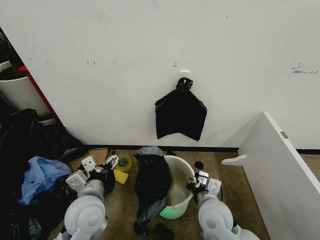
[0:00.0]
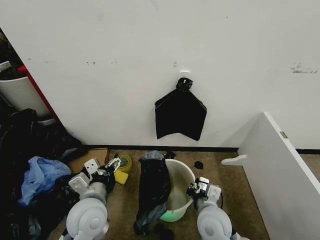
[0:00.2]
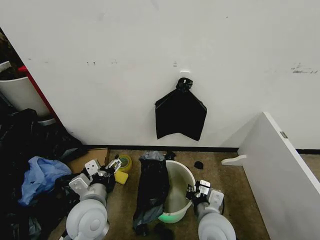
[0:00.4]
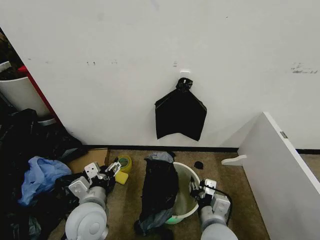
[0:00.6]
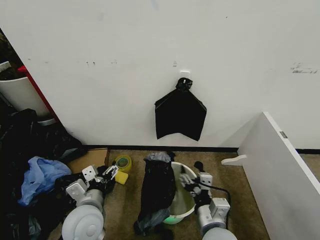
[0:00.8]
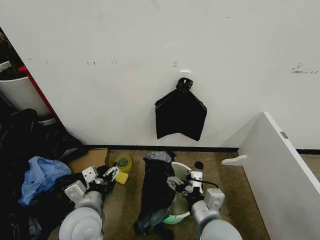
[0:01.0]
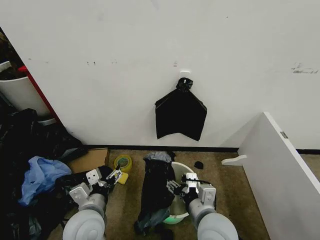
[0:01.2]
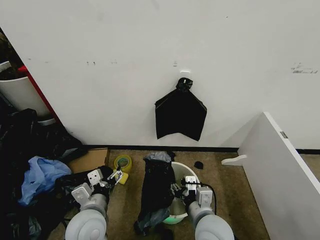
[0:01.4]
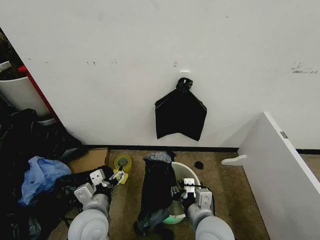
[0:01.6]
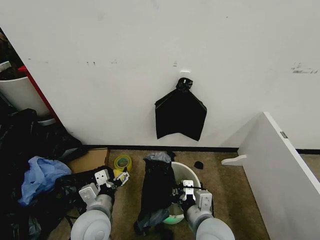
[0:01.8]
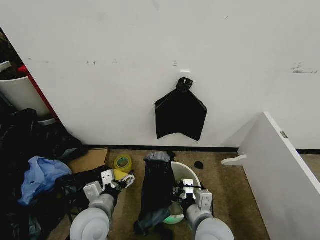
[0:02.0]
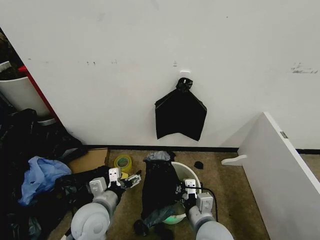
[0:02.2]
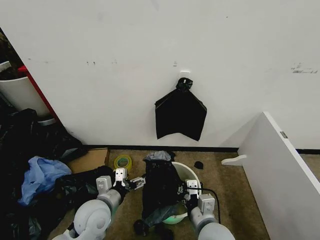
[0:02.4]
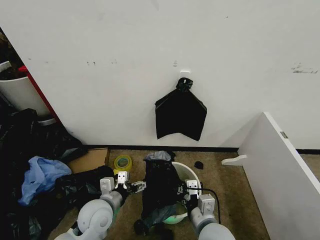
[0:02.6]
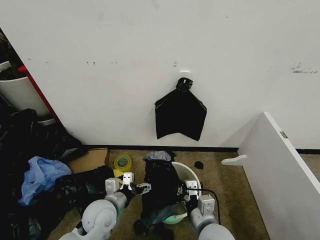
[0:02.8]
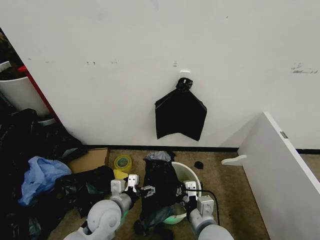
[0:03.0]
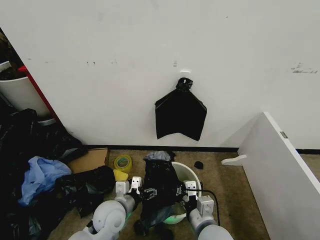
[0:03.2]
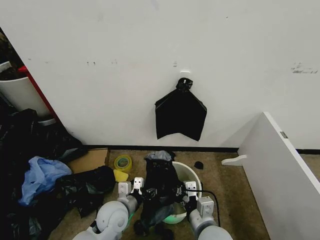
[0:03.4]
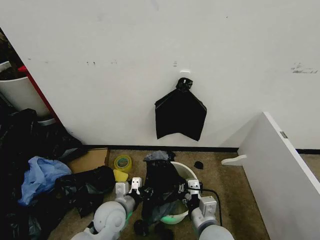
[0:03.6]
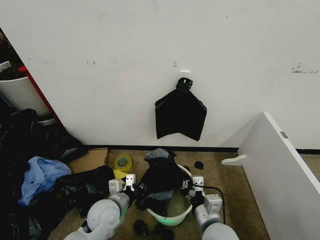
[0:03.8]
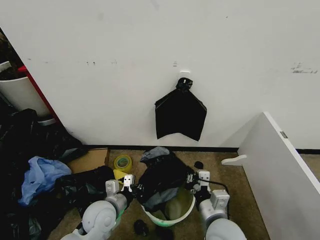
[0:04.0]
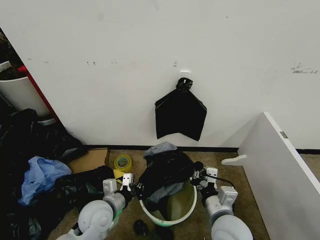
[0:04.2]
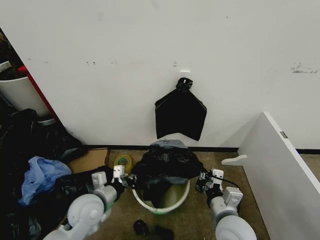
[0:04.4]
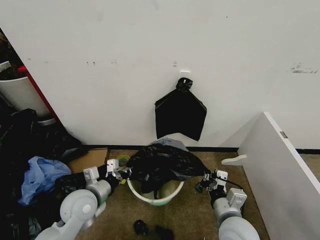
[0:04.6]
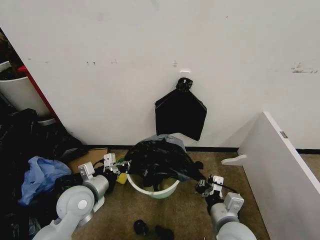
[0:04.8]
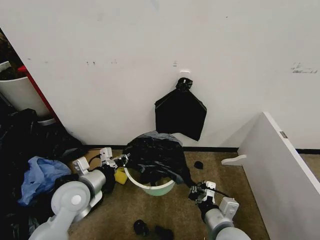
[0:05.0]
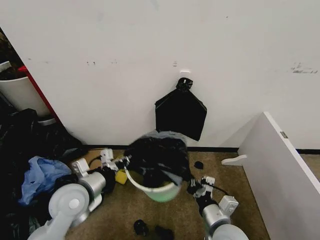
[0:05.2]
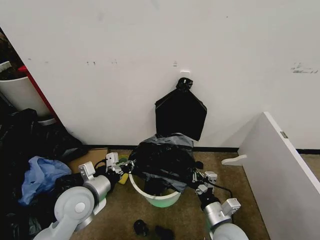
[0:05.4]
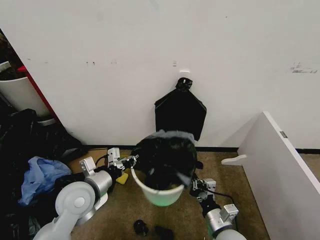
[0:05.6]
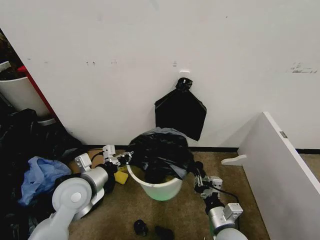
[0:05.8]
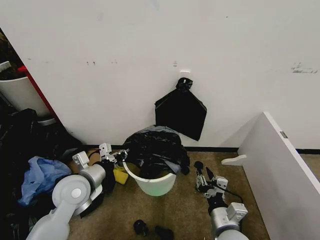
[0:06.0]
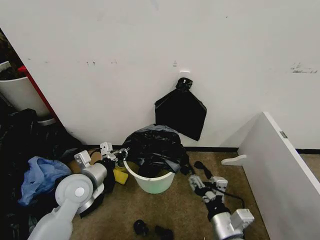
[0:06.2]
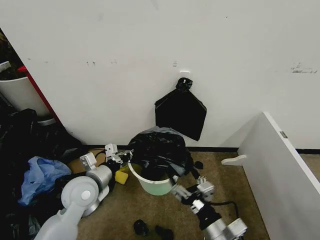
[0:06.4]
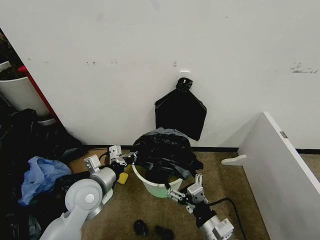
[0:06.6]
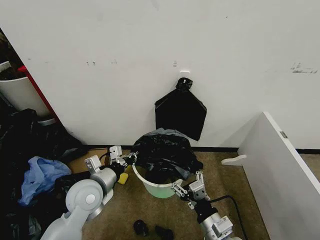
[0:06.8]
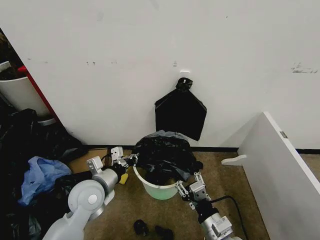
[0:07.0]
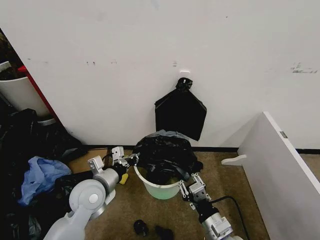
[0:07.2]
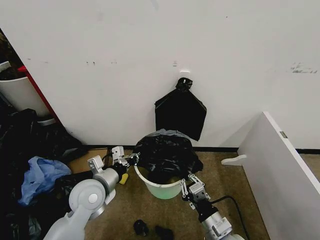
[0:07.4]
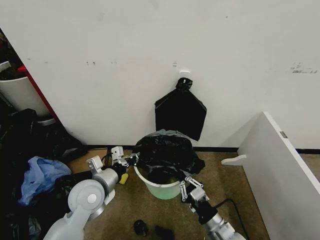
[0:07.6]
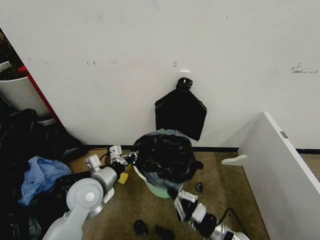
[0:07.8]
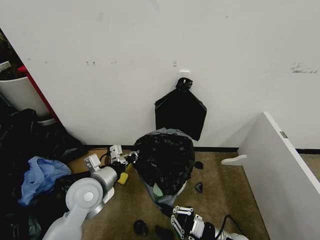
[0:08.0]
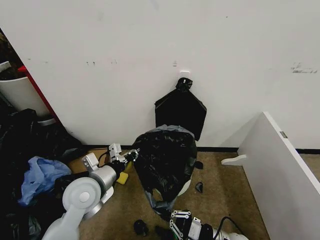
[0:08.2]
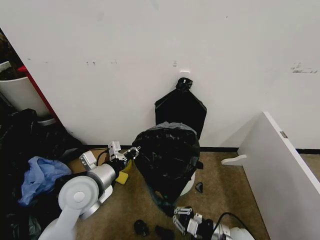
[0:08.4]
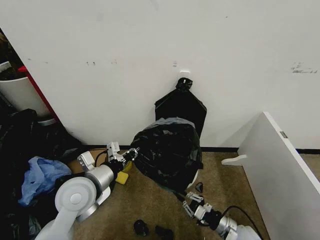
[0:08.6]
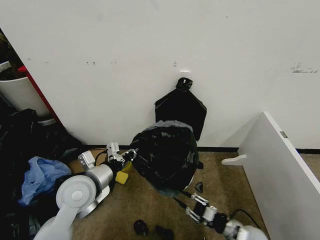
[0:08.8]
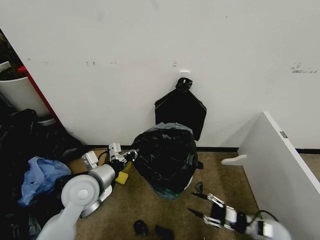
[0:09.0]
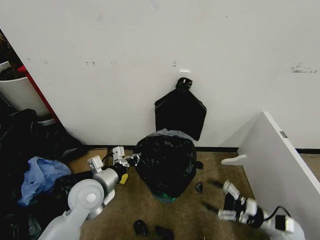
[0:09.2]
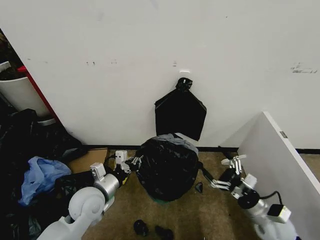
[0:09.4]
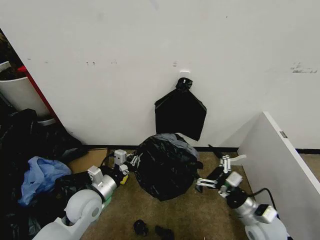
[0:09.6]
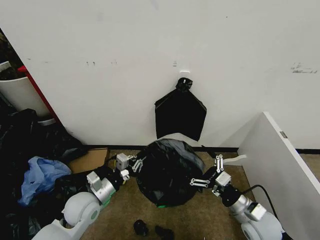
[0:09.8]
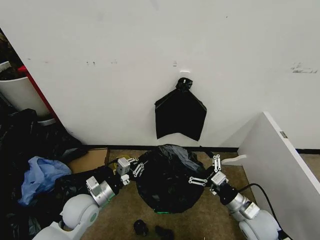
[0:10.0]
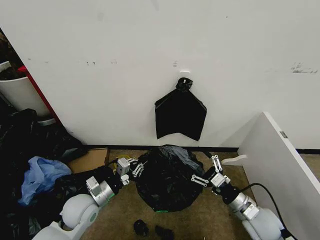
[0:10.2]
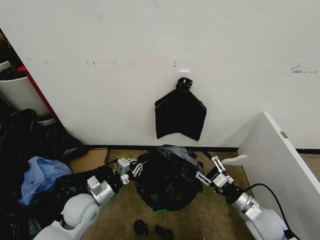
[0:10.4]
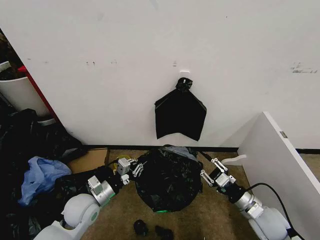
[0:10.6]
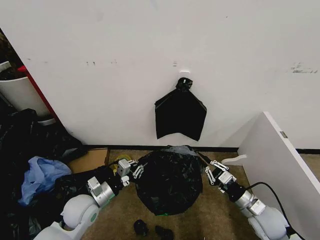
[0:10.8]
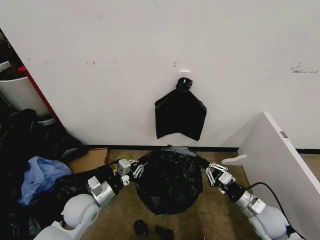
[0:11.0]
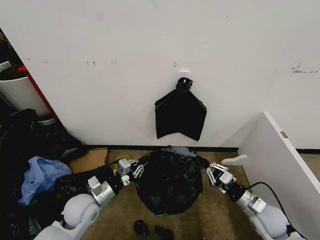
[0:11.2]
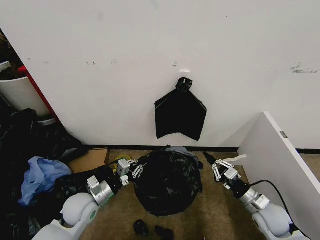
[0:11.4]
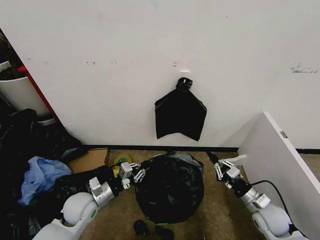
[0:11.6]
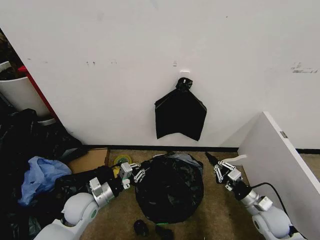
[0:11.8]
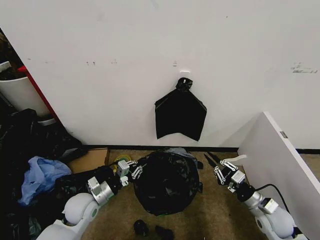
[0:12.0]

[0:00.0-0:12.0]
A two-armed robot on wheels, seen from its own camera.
Task of the whole recording: Place the garbage bag over the trash bin.
0:00.0 to 0:01.6: The right gripper is displaced backward by some 5 cm, and opens, then closes again.
0:01.6 to 0:03.0: The left gripper shifts by roughly 5 cm.
0:03.0 to 0:04.4: The left gripper moves to the left, roughly 5 cm, and closes. The right gripper shifts some 5 cm to the right.
0:04.4 to 0:06.0: The right gripper opens. The left gripper heads upward, covering roughly 5 cm.
0:06.0 to 0:07.6: The right gripper closes up.
0:07.6 to 0:09.0: The right gripper moves to the right and downward, about 20 cm, and opens.
0:09.0 to 0:10.4: The right gripper moves upward and to the left, about 15 cm, and opens and closes again. Meanwhile the left gripper shifts some 10 cm downward.
0:10.4 to 0:12.0: The right gripper moves to the right, some 5 cm, and closes up.

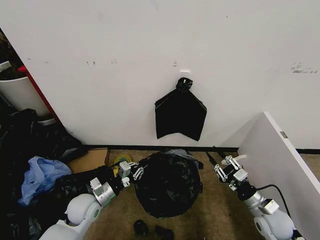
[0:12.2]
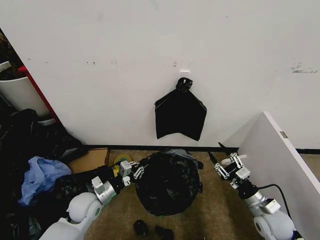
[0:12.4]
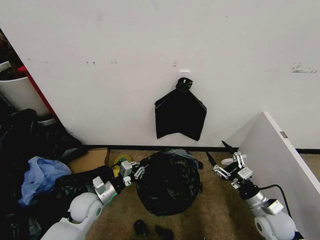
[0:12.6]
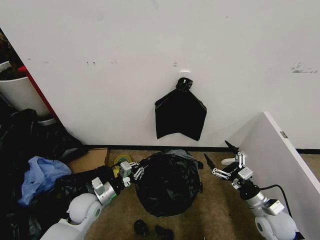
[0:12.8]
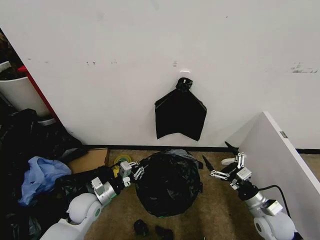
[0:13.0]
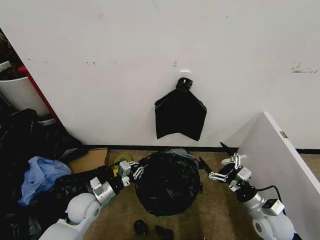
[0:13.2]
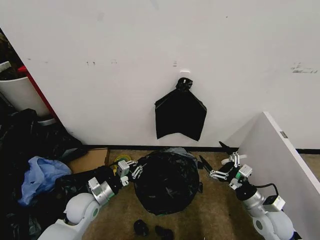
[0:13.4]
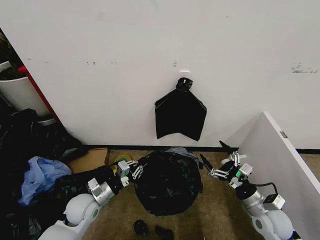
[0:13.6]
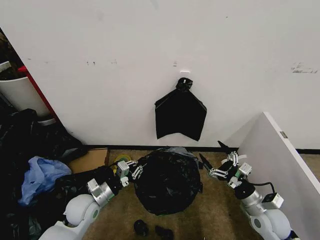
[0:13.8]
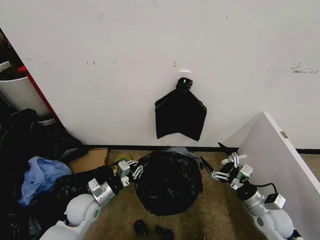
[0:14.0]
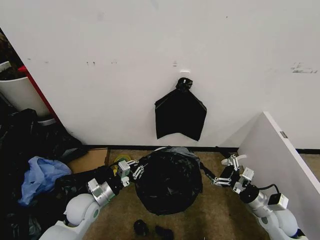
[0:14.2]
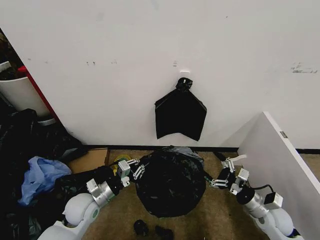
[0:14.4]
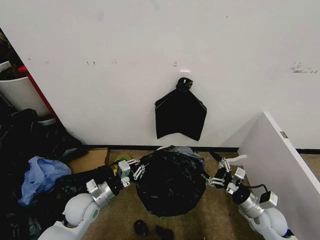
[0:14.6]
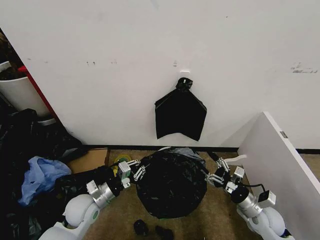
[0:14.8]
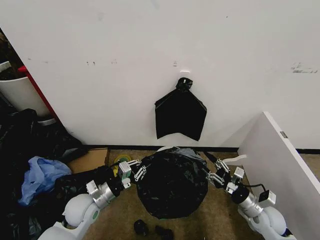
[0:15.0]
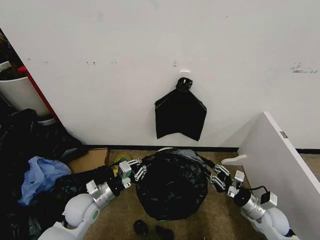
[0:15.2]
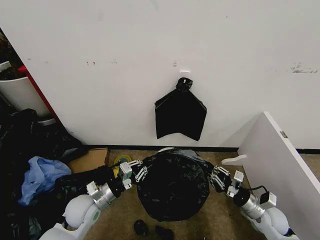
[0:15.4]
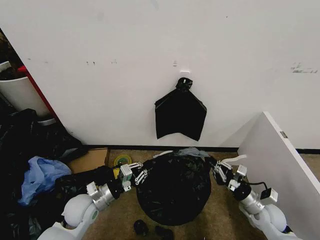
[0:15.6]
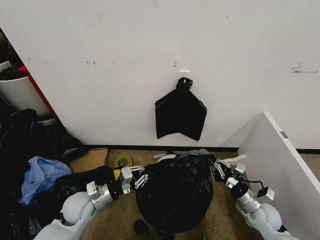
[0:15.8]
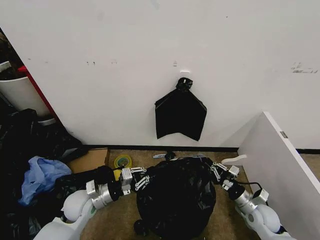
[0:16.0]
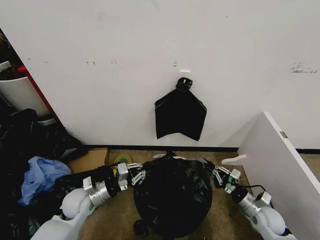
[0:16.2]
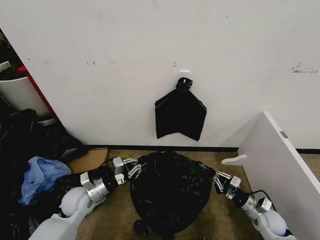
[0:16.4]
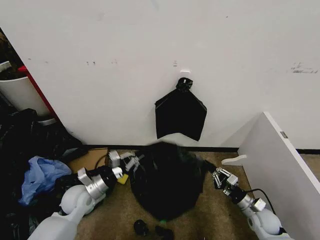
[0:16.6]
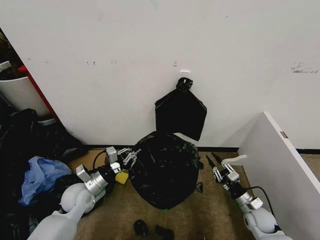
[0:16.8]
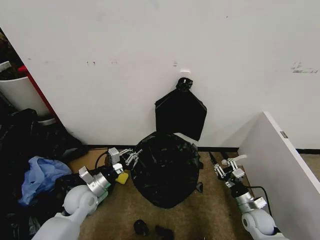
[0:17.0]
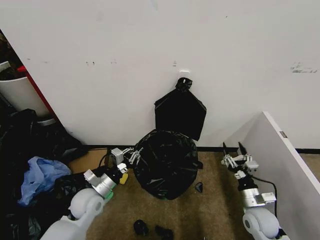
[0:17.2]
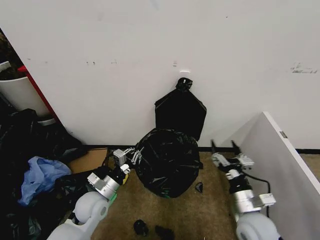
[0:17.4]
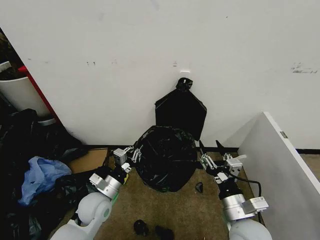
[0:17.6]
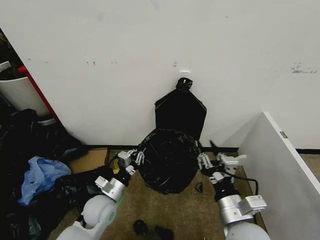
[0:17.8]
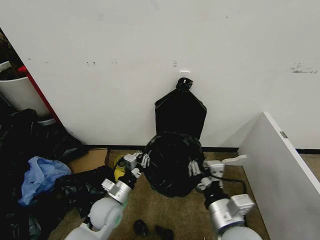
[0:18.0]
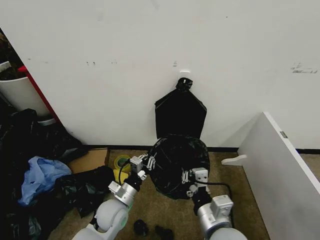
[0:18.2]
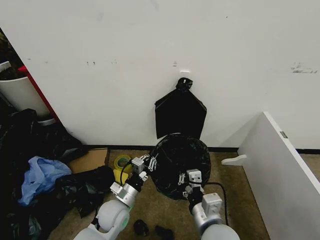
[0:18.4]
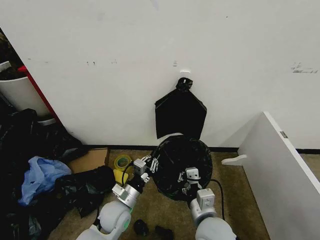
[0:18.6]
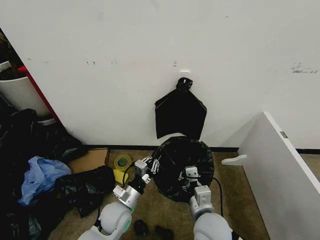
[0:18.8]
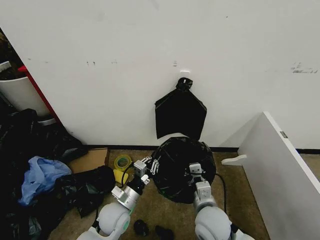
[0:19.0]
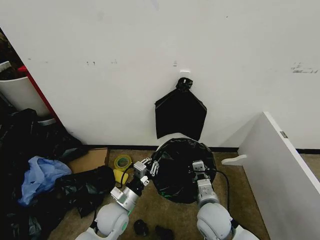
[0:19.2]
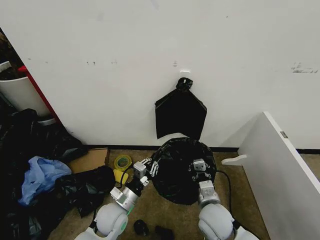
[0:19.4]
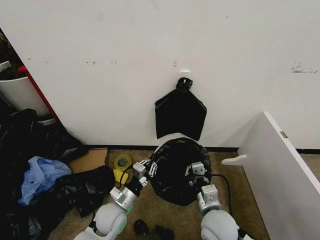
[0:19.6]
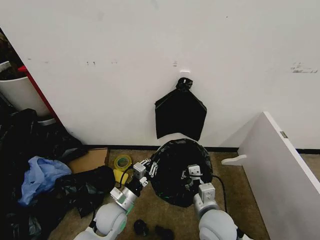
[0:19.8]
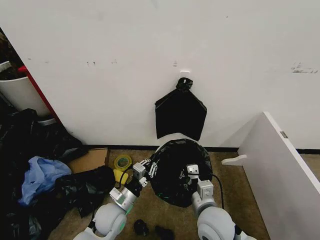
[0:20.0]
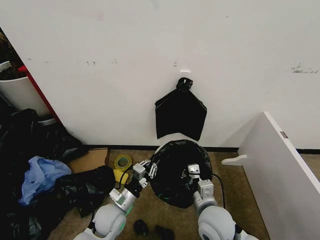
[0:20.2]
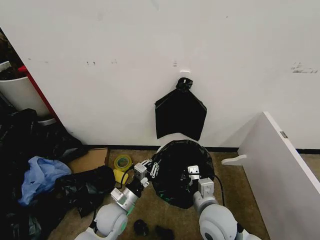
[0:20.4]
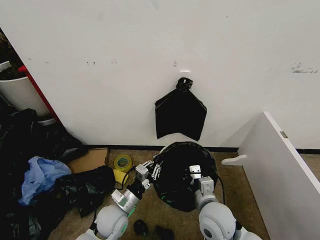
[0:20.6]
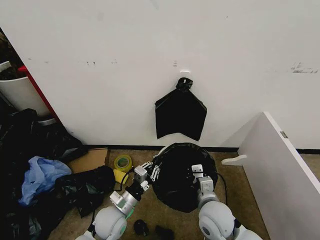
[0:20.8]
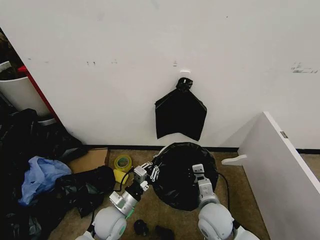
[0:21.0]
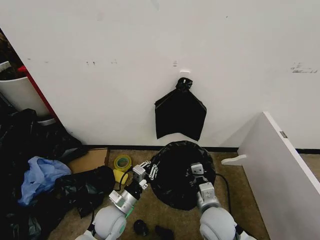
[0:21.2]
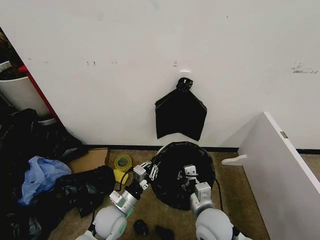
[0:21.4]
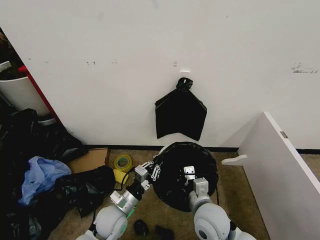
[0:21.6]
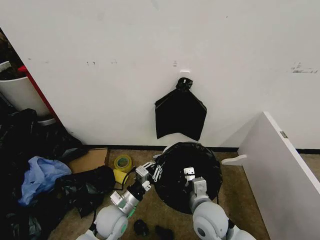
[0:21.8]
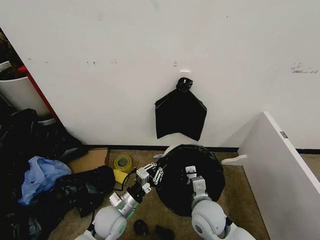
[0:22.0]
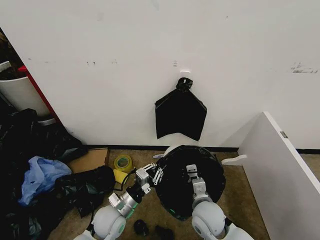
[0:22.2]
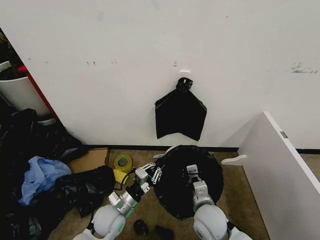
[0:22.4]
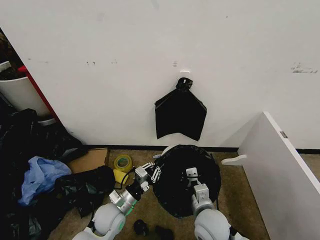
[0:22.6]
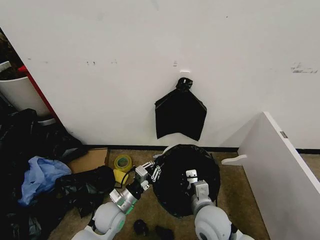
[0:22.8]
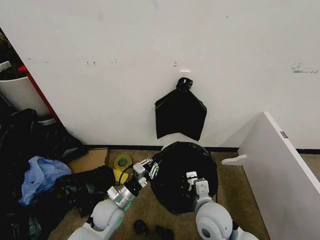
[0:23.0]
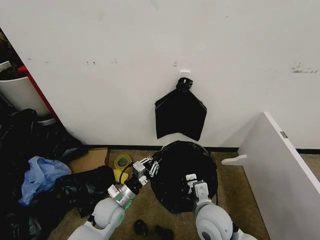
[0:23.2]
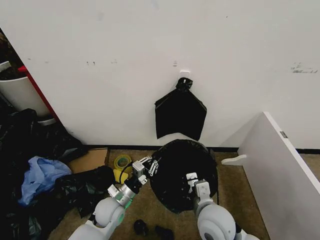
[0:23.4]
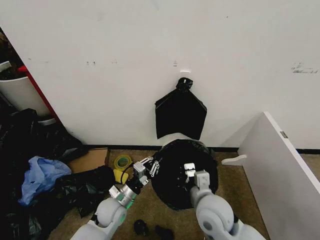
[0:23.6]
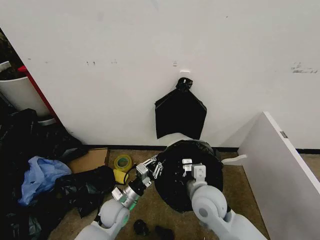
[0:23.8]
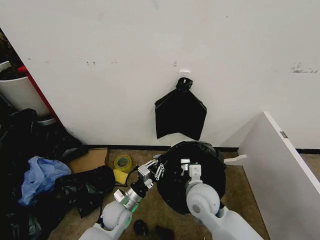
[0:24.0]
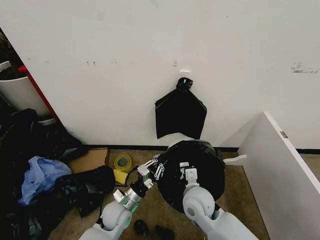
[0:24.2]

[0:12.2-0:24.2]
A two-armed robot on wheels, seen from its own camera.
Task of the whole recording: Place the garbage bag over the trash bin.
0:12.2 to 0:13.8: The right gripper opens up.
0:13.8 to 0:15.2: The right gripper changes place by some 5 cm, and closes up.
0:15.2 to 0:16.6: The right gripper goes approximately 5 cm downward.
0:16.6 to 0:18.2: The right gripper shifts some 35 cm to the left, upward and backward, and opens and closes again; the left gripper travels to the right by approximately 10 cm.
0:18.2 to 0:19.8: The right gripper travels downward and forward by approximately 10 cm.
0:19.8 to 0:21.2: The grippers stay close to where they were, moving slightly.
0:22.6 to 0:24.2: The right gripper moves forward, approximately 5 cm.
